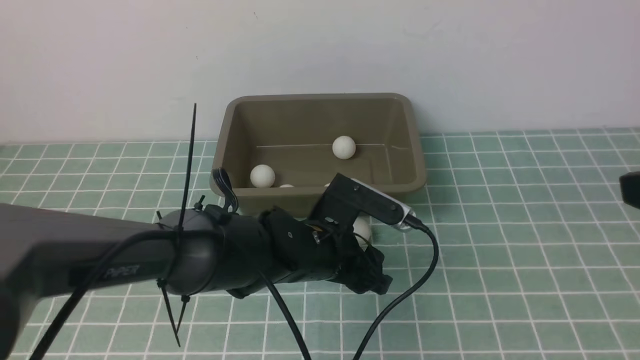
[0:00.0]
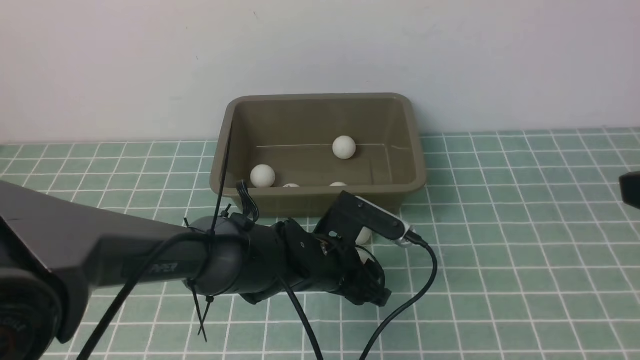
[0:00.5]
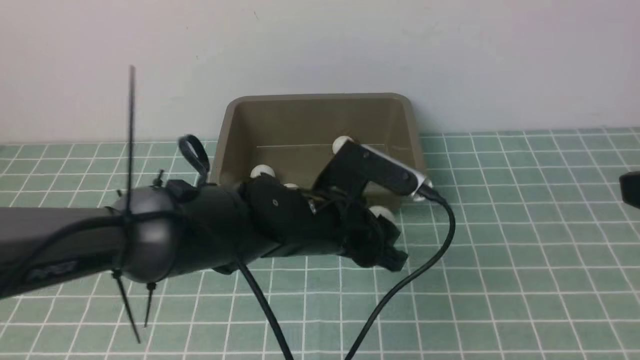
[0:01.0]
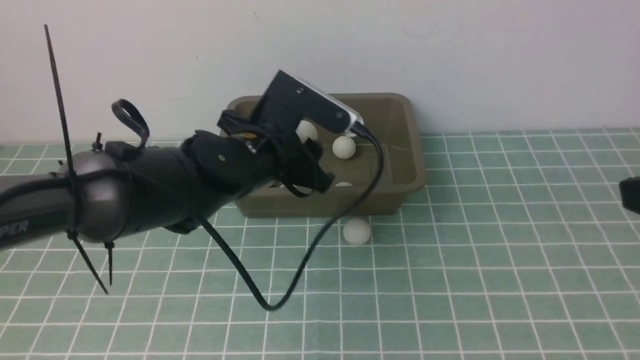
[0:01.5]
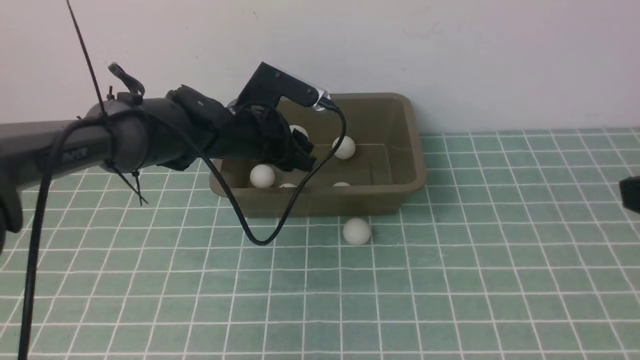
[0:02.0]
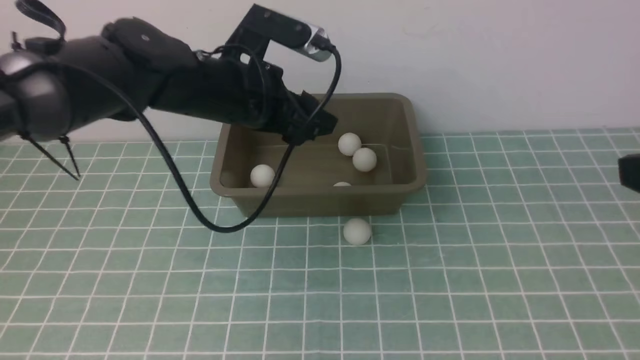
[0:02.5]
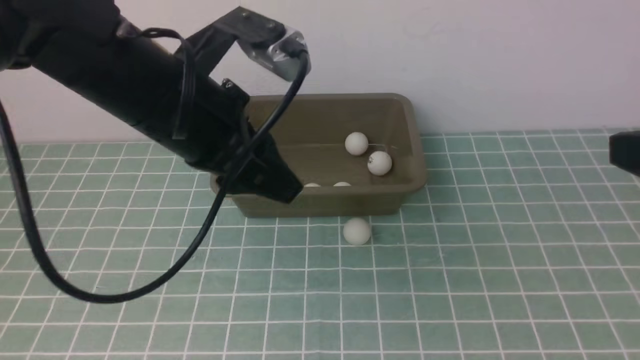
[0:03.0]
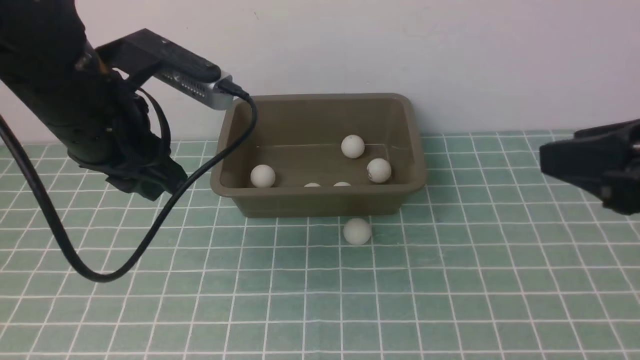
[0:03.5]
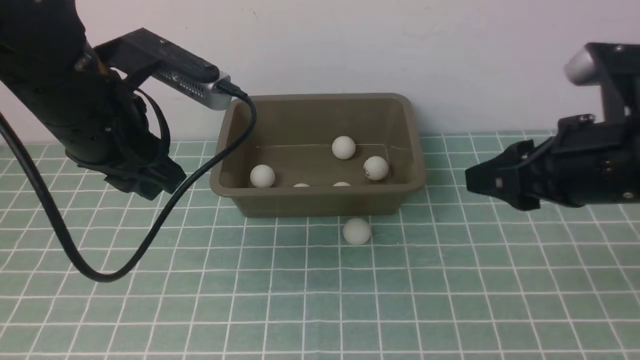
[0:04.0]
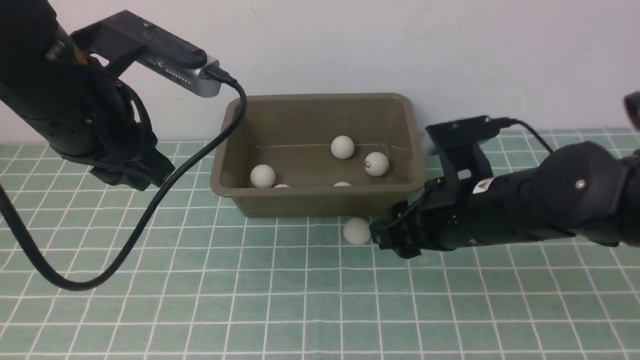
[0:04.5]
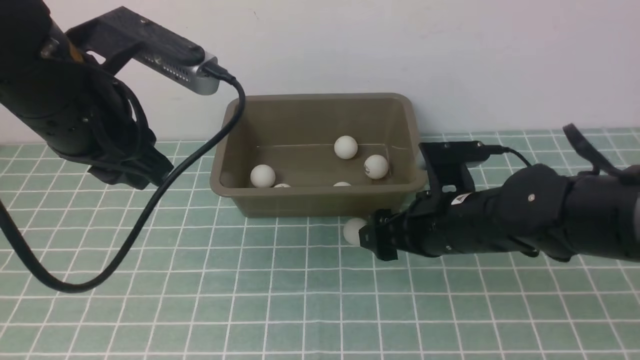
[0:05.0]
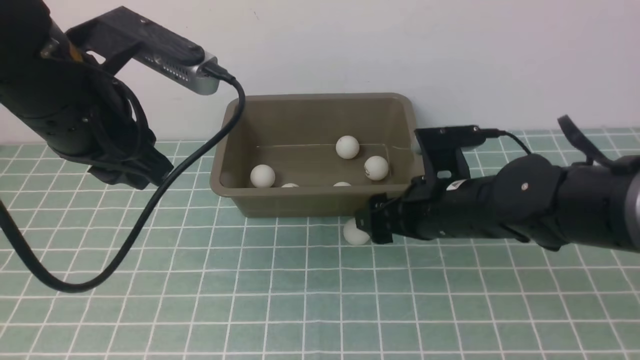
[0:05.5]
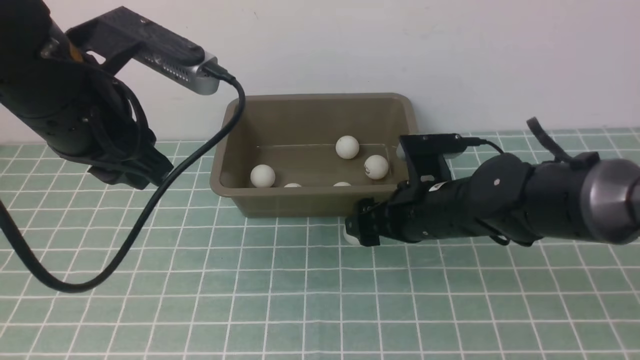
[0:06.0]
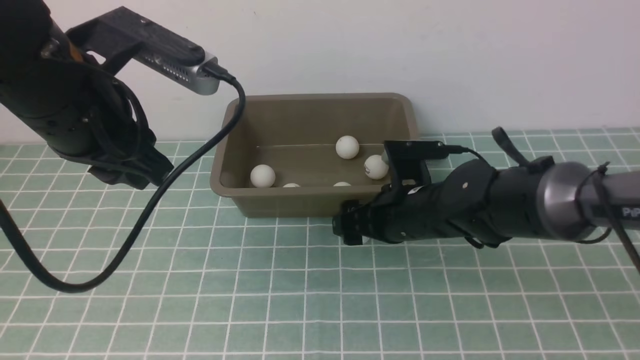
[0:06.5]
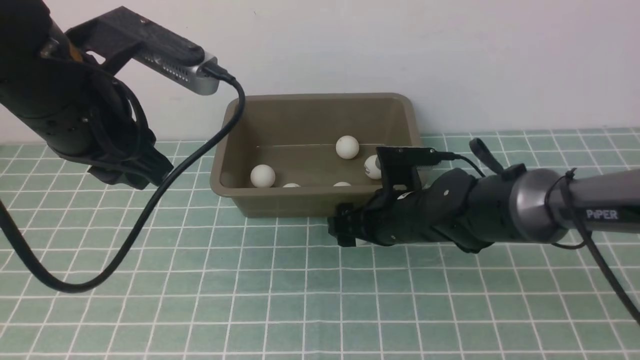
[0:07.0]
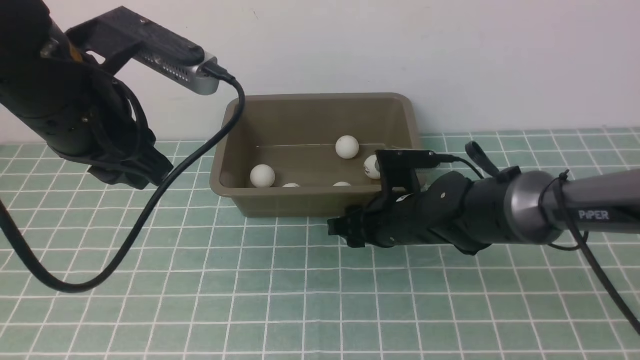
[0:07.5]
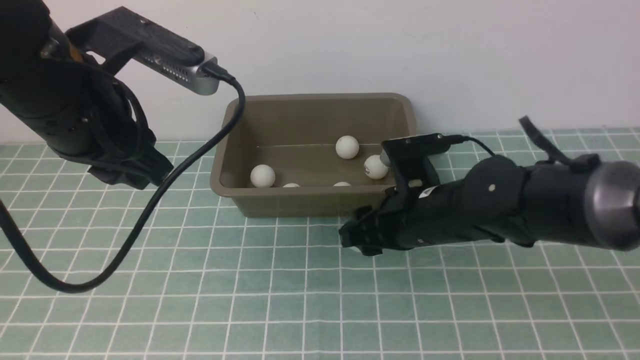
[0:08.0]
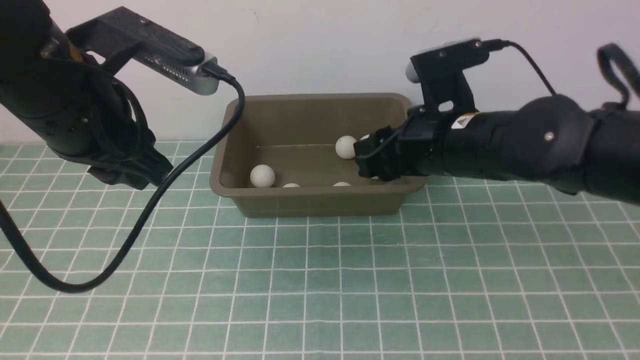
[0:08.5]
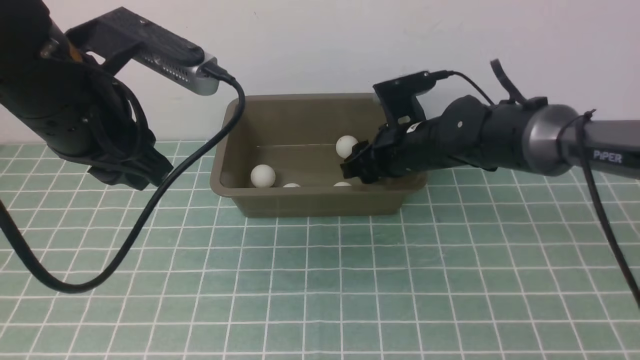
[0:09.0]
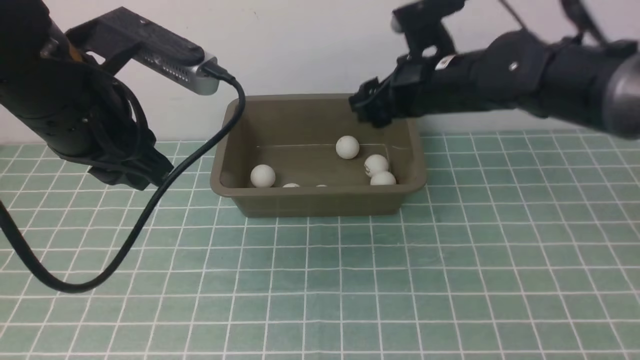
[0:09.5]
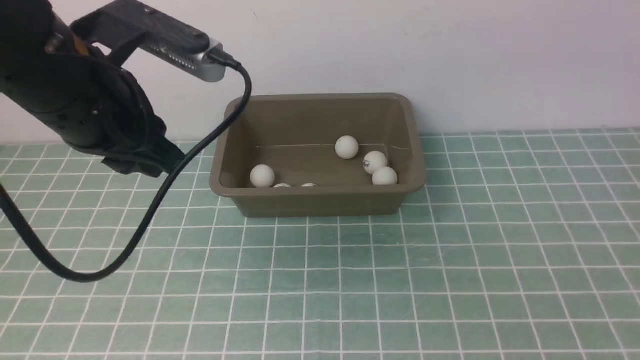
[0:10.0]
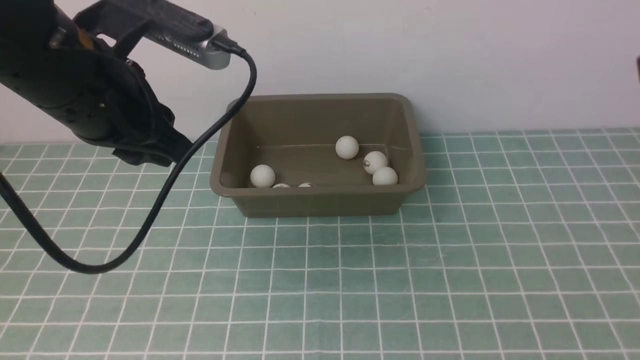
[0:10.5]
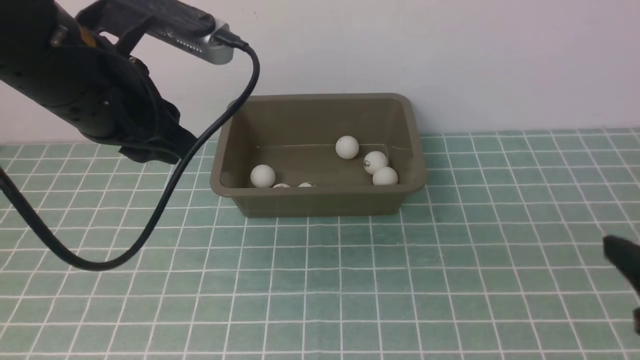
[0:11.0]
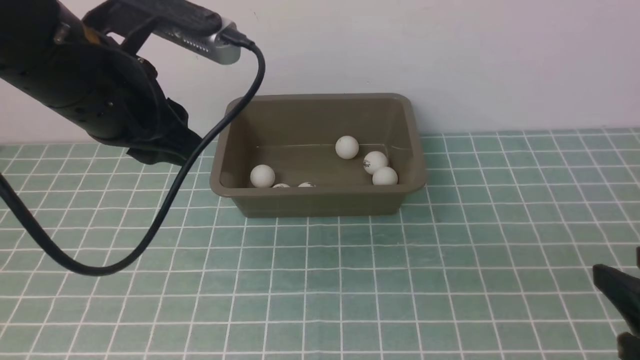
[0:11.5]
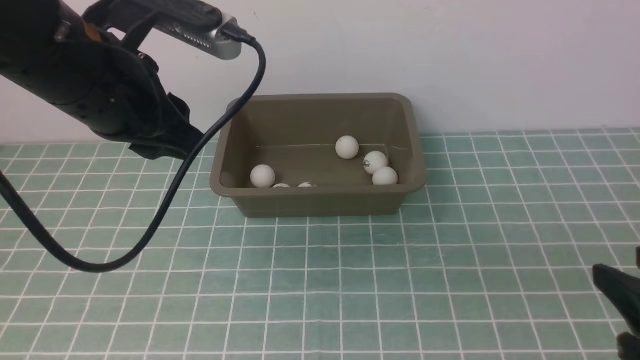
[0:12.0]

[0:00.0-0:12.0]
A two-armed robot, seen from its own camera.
Step, 0:01.5 to 0:02.0: use the left arm to put the table tennis ball into the box.
Step, 0:02.5 to 0:08.0: use the right arm to clamp the table tennis ball closest to it.
Step, 0:08.5 to 0:09.5: use the right arm to put the table tennis ball into the box.
0:00.0 to 0:02.0: The left gripper heads forward, to the left and upward, covering roughly 15 cm.
0:02.0 to 0:04.0: The left gripper is displaced upward, backward and to the left by approximately 20 cm, and closes its fingers. The right gripper shifts roughly 15 cm forward, to the left and downward.
0:04.0 to 0:06.0: The right gripper heads downward, to the left and forward, covering about 20 cm, and opens its fingers.
0:06.0 to 0:08.0: The right gripper closes its fingers.
0:08.0 to 0:10.0: The right gripper goes up and down, about 25 cm each way, reversing 2 times, and opens up.
0:10.0 to 0:12.0: The right gripper goes roughly 25 cm downward and backward, and closes up.

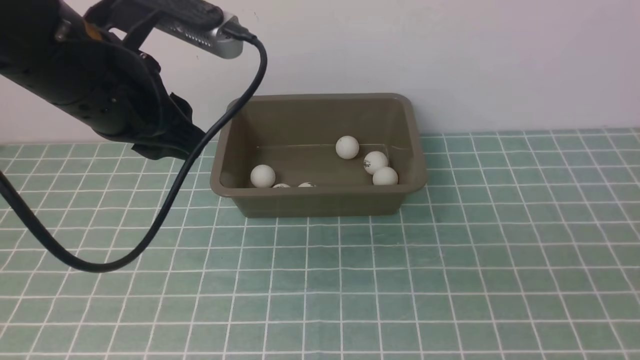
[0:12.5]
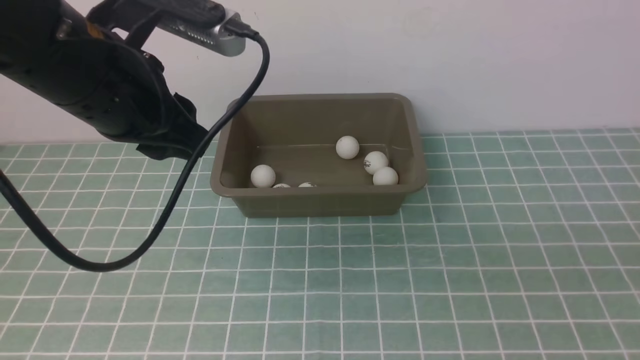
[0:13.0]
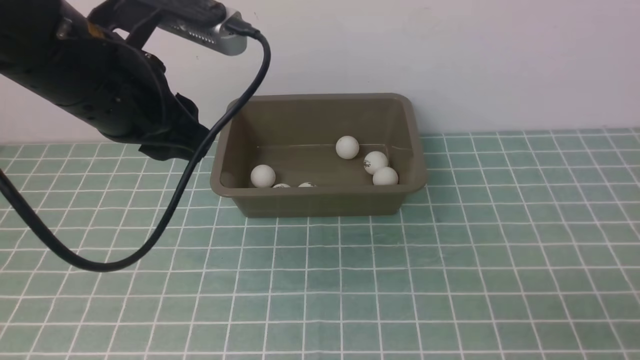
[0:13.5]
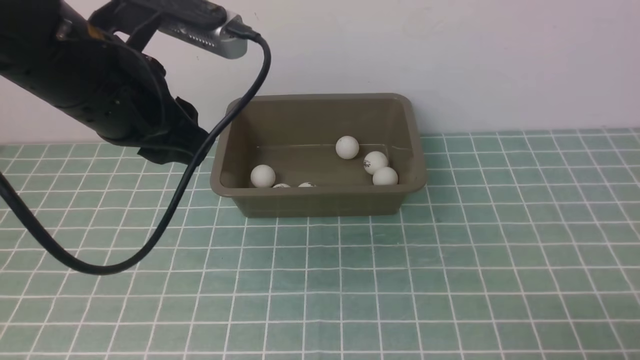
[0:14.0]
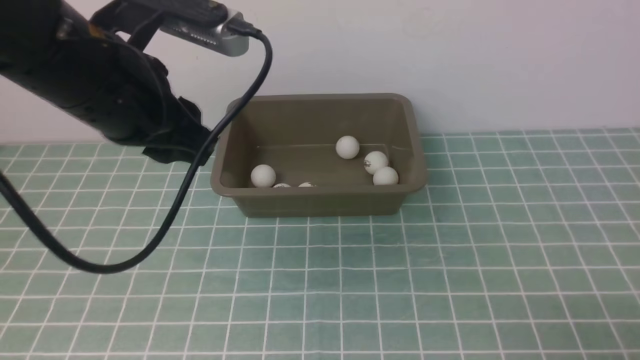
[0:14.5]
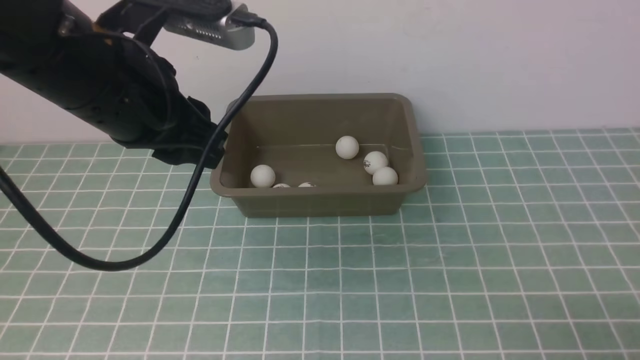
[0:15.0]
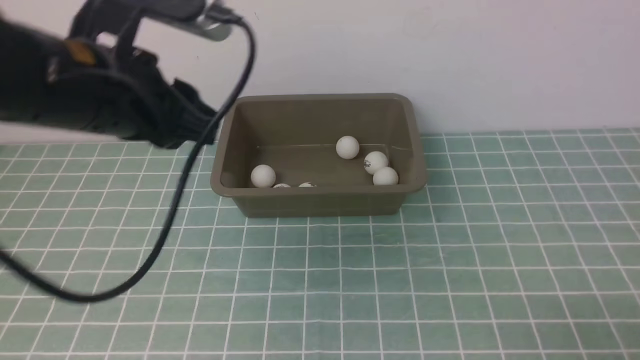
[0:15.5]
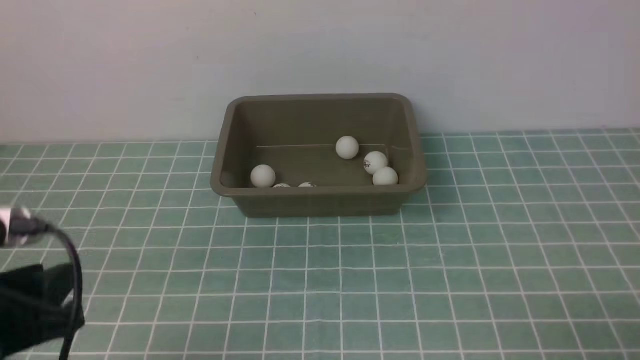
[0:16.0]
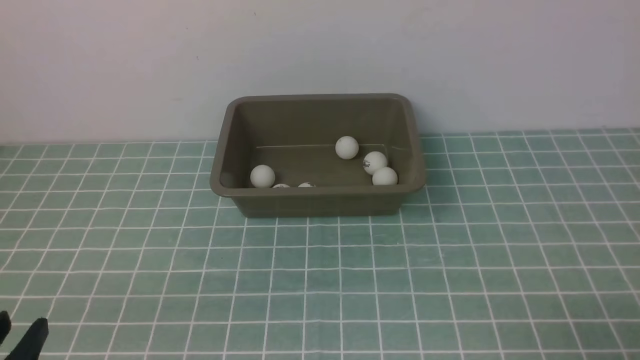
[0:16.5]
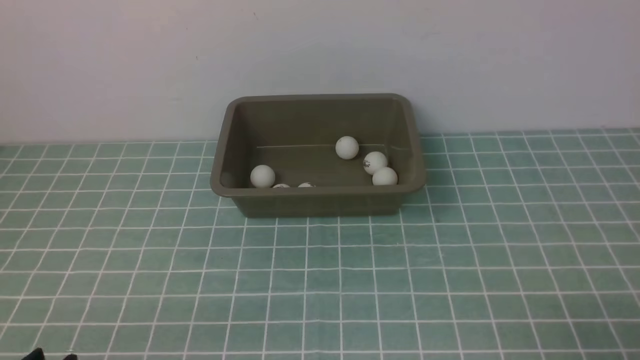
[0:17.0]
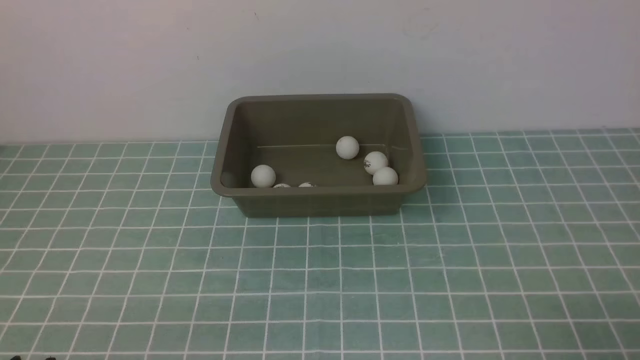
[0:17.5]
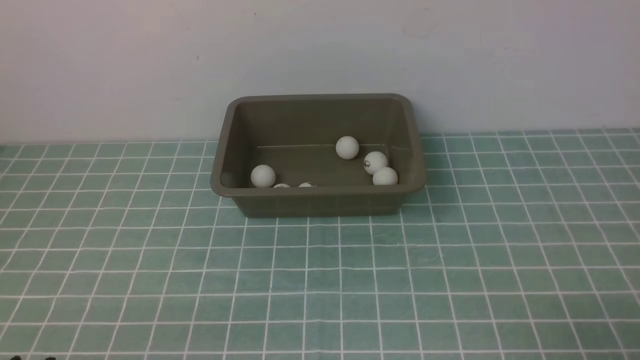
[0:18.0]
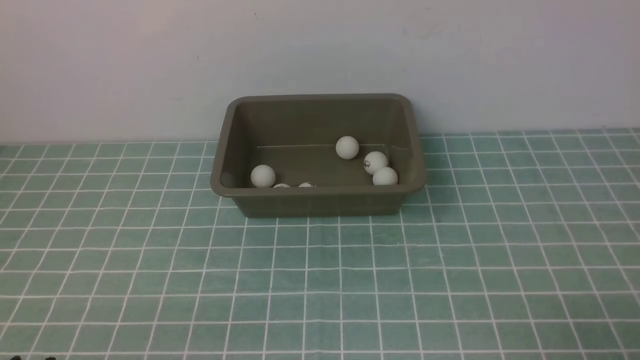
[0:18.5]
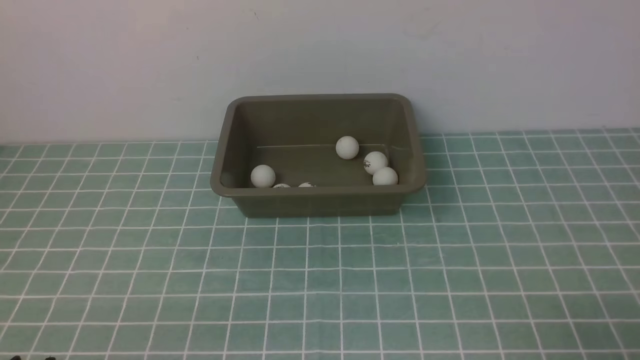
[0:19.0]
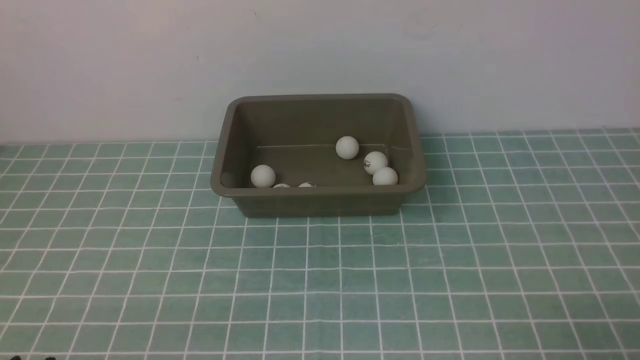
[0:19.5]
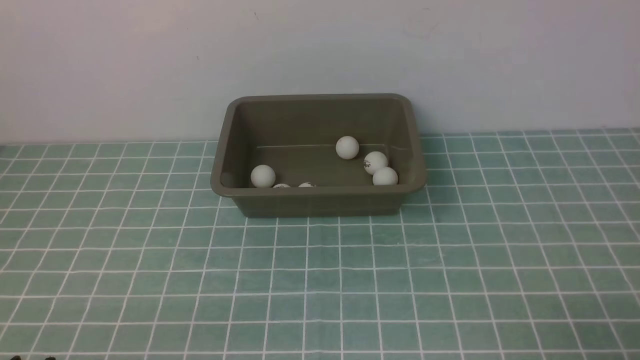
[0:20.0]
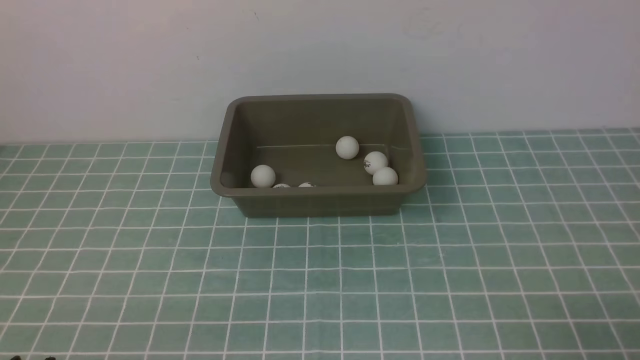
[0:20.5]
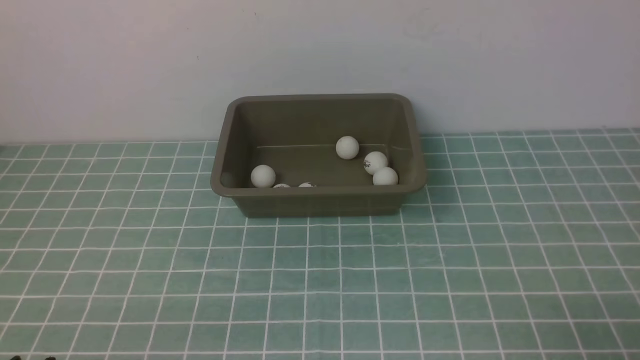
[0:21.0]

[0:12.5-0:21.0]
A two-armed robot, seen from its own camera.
0:12.5 to 0:14.5: The right gripper travels downward by some 10 cm.
0:14.5 to 0:16.5: The left gripper is displaced backward, downward and to the left by roughly 30 cm.
0:19.0 to 0:21.0: Neither gripper changes place.
